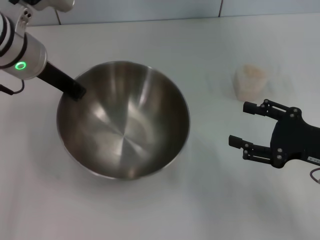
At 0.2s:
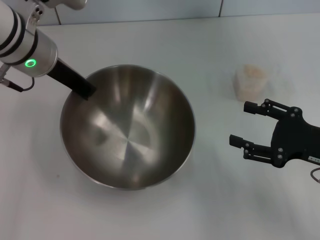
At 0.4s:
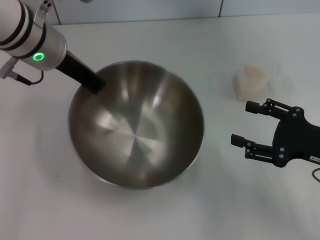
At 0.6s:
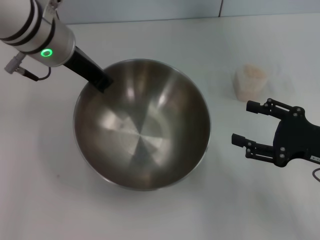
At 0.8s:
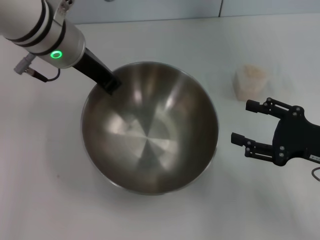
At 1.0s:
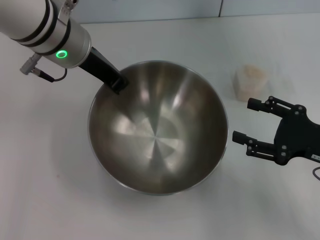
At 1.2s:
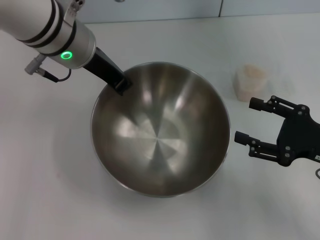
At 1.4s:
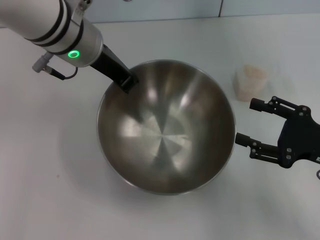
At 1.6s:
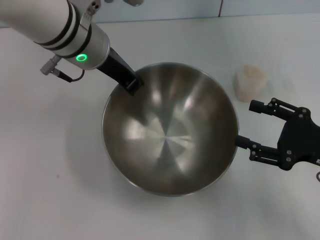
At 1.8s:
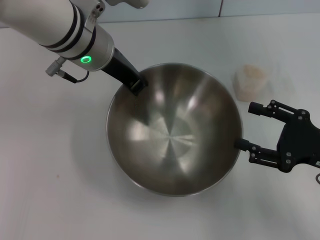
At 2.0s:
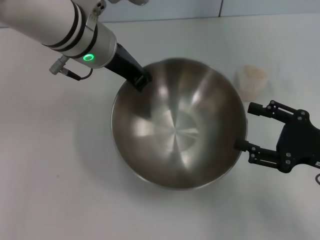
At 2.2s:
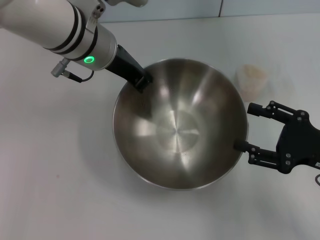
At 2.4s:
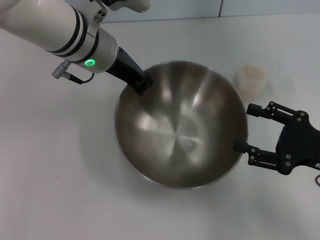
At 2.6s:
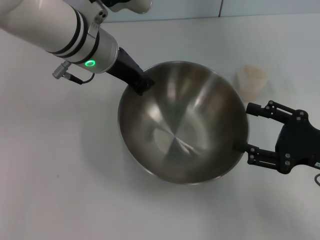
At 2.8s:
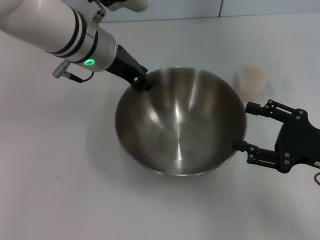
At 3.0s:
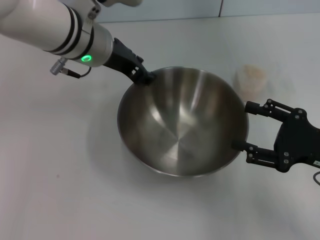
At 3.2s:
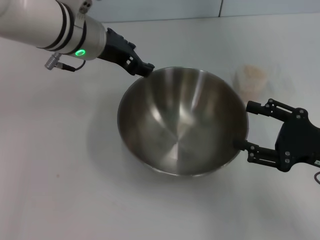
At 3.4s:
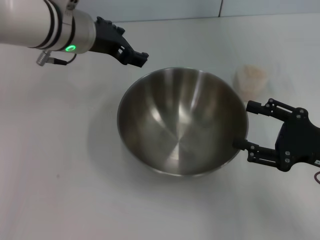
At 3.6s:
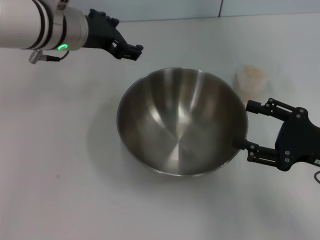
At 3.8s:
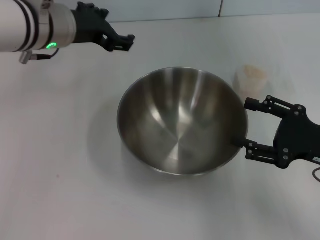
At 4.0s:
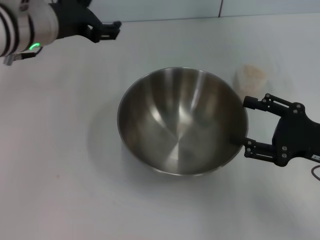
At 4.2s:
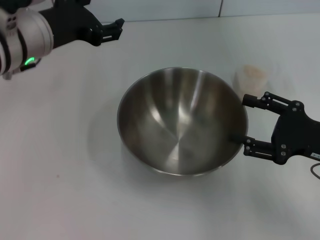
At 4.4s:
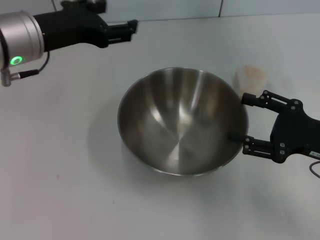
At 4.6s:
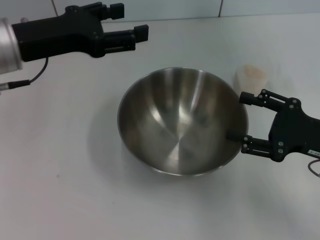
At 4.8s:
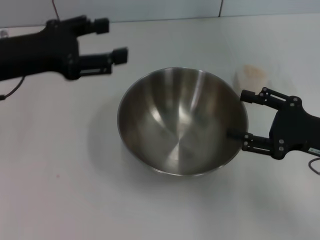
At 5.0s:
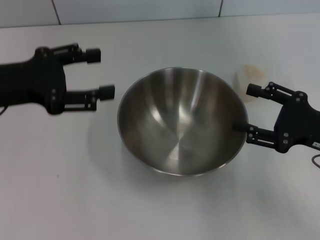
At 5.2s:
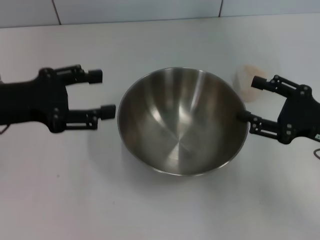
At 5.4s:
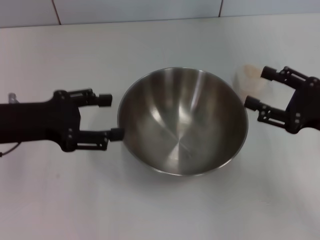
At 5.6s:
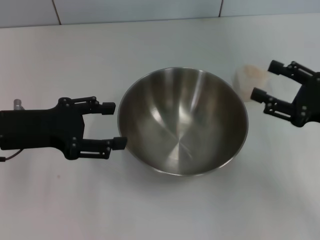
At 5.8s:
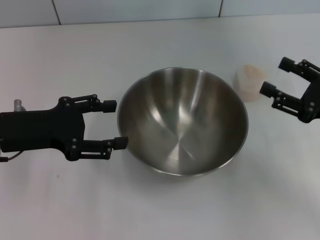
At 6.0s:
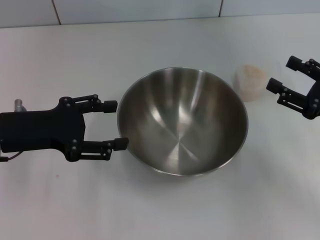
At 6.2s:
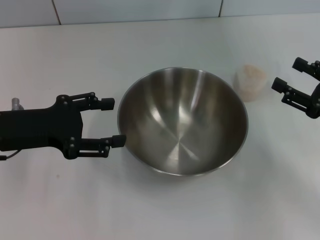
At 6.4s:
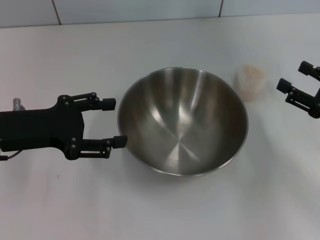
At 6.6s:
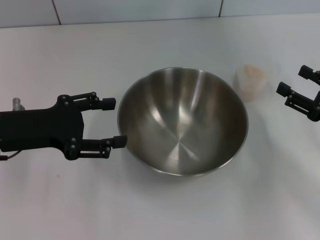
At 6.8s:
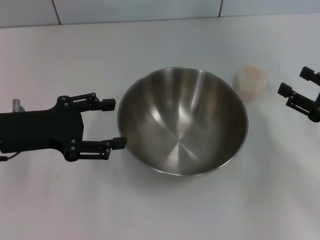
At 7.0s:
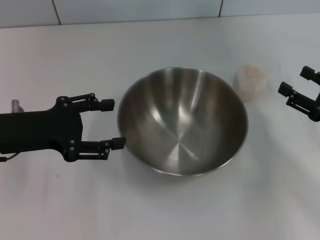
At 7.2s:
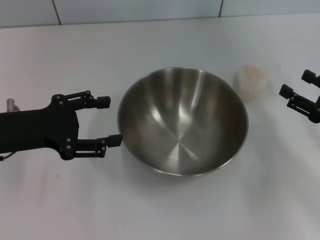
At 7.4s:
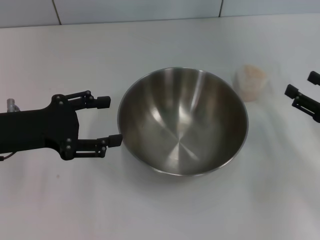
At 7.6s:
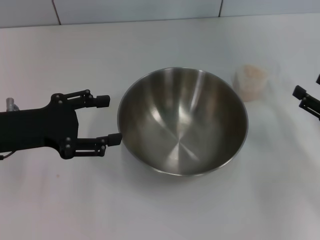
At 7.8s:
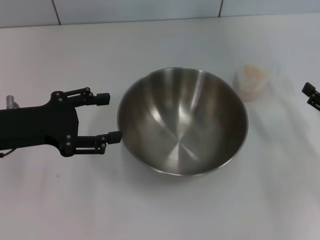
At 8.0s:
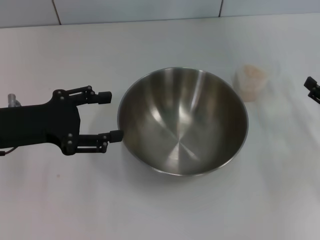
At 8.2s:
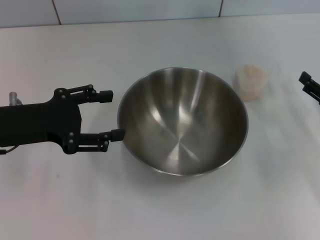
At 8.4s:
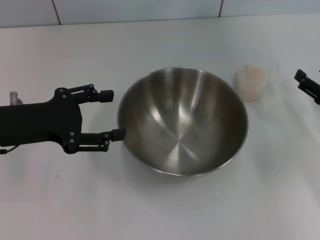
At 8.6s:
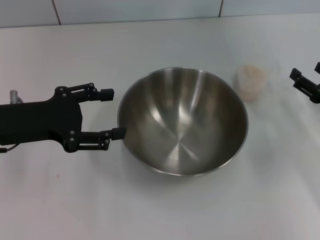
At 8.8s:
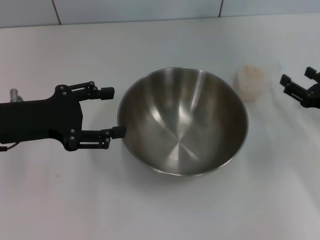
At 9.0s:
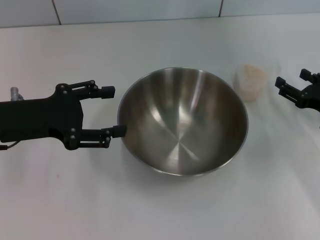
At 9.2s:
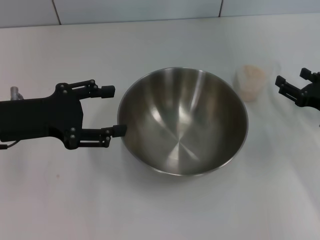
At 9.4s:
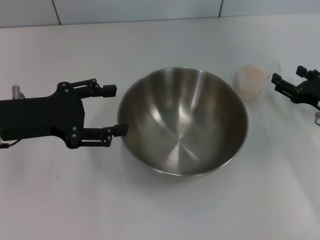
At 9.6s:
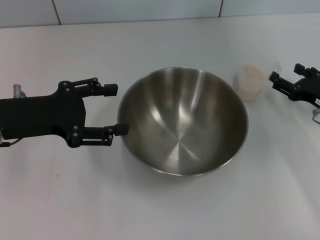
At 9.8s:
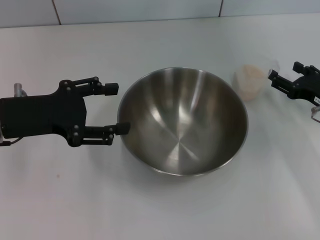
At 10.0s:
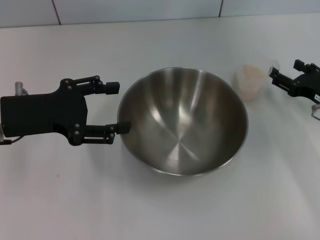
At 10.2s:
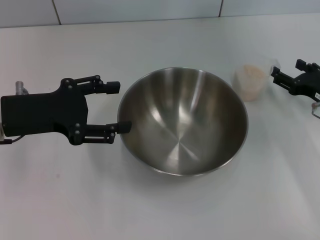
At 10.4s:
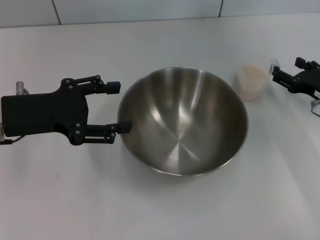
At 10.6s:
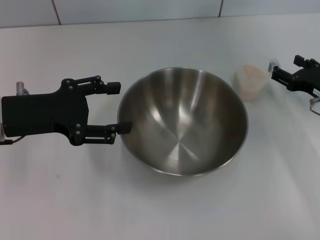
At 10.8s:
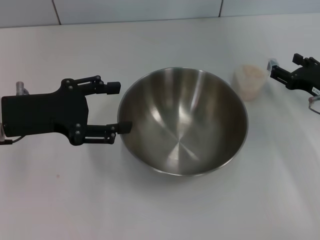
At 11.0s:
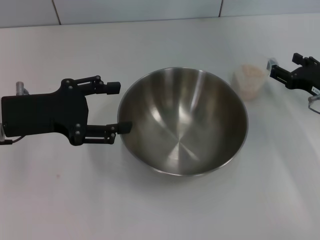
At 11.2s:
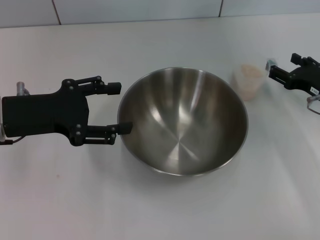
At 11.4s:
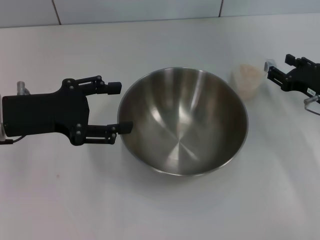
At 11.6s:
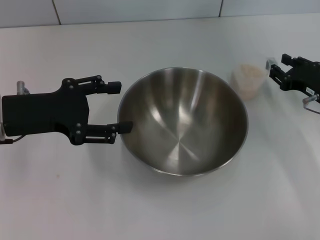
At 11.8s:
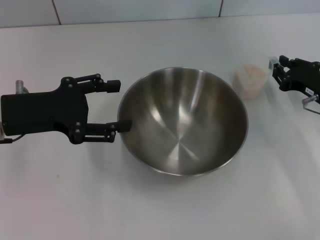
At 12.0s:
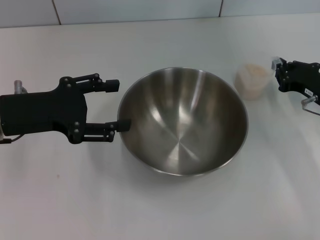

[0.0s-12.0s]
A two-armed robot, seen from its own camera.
Task of the whole recording: Place the bowl in the middle of the table with one hand and pour the rice from the grain cup into it with the other hand.
Step, 0.0s to 3.2s: Place the bowl in the center of view with the left gripper.
0.0s to 1.6s: The left gripper is displaced to the right by some 10 cm.
1.6s to 3.0s: The left gripper opens up.
3.0s to 4.4s: The left gripper is displaced to the left by approximately 10 cm, and opens.
4.4s to 6.0s: The left gripper shifts roughly 10 cm downward, to the left and backward.
6.0s to 7.6s: The grippers move only a little.
7.6s to 9.0s: The right gripper travels forward by about 5 cm.
9.0s to 10.4s: The grippers move only a little.
10.4s to 12.0s: The right gripper closes.

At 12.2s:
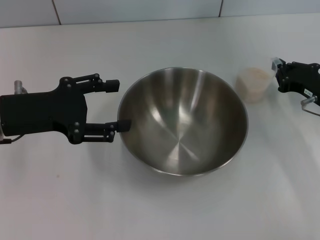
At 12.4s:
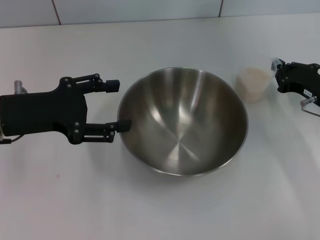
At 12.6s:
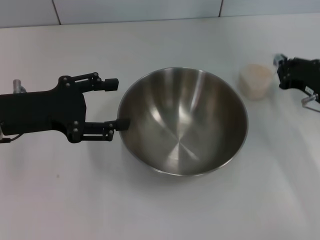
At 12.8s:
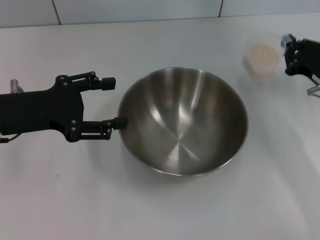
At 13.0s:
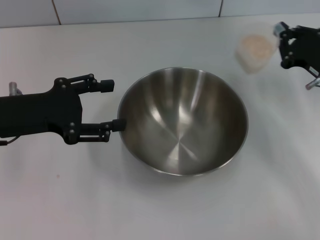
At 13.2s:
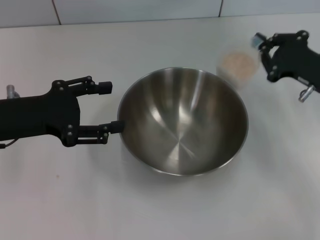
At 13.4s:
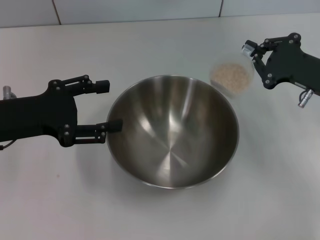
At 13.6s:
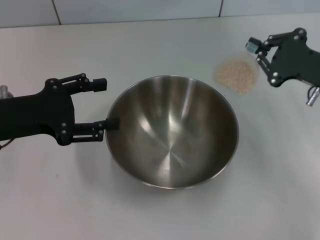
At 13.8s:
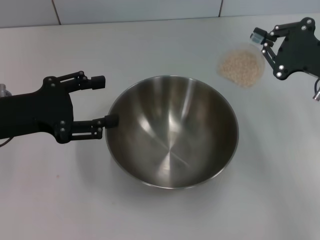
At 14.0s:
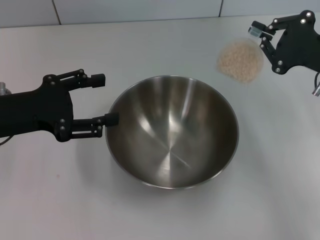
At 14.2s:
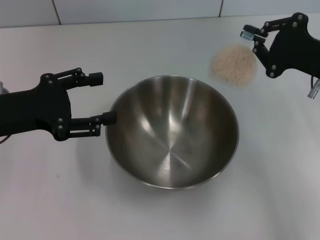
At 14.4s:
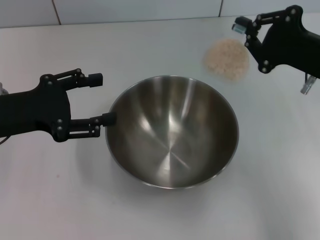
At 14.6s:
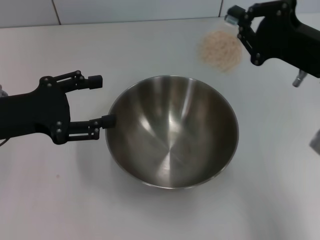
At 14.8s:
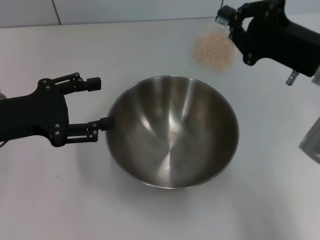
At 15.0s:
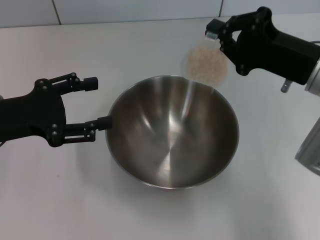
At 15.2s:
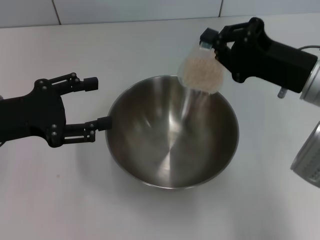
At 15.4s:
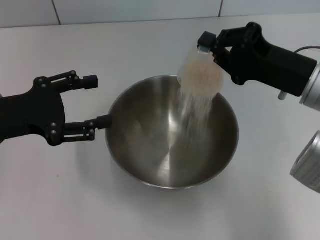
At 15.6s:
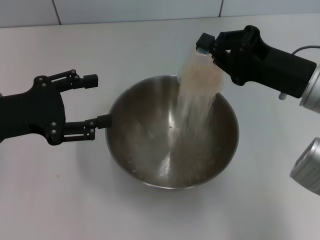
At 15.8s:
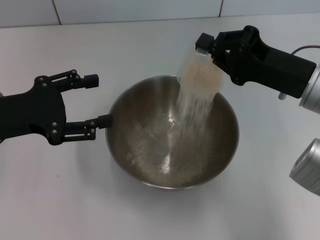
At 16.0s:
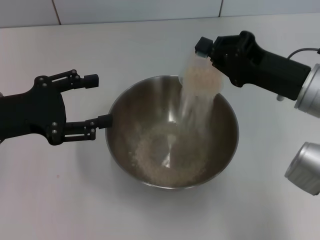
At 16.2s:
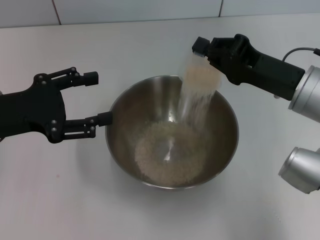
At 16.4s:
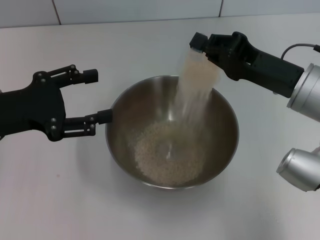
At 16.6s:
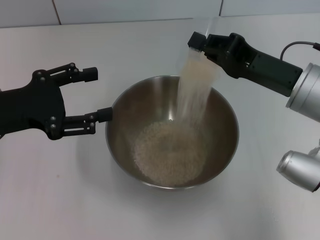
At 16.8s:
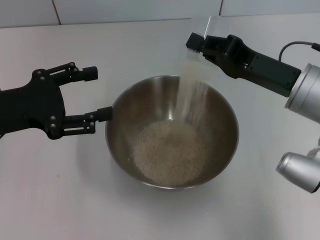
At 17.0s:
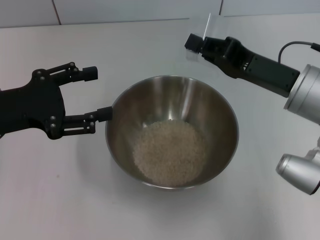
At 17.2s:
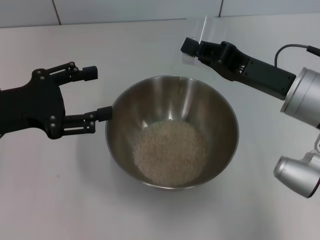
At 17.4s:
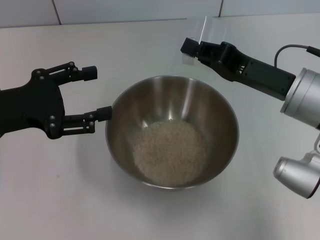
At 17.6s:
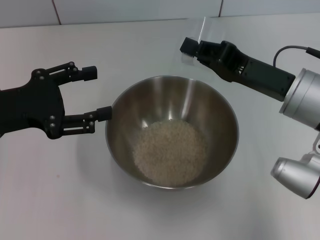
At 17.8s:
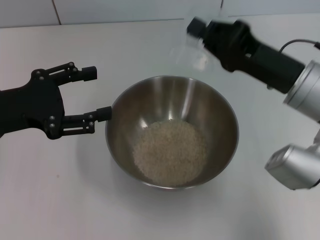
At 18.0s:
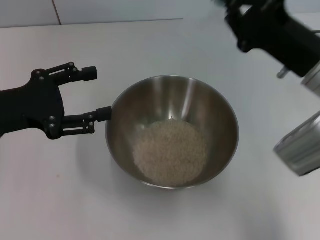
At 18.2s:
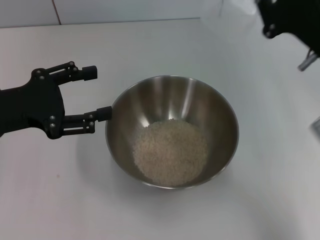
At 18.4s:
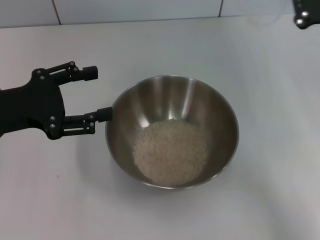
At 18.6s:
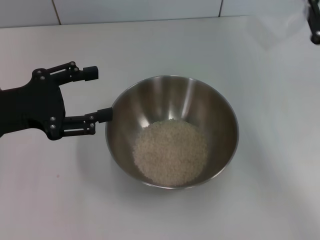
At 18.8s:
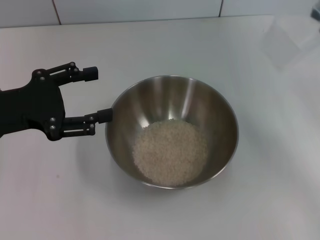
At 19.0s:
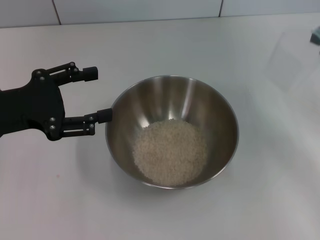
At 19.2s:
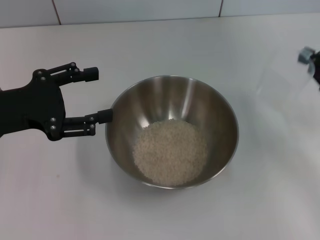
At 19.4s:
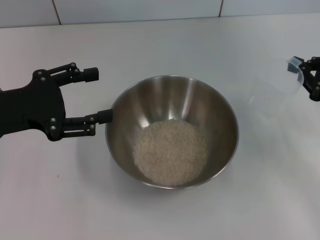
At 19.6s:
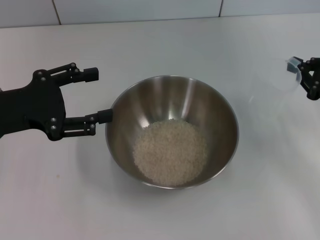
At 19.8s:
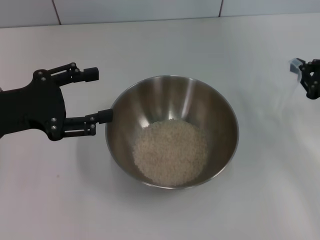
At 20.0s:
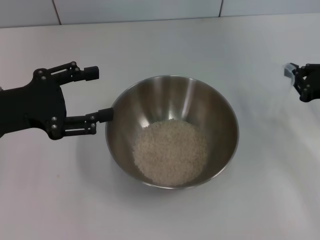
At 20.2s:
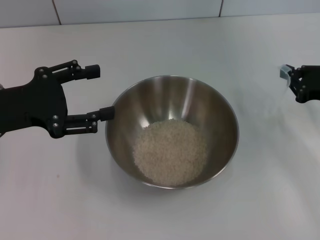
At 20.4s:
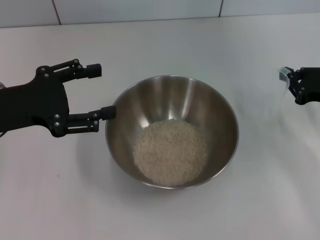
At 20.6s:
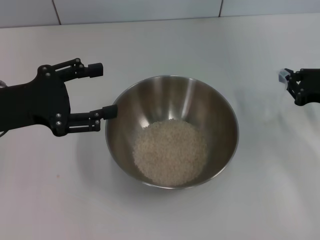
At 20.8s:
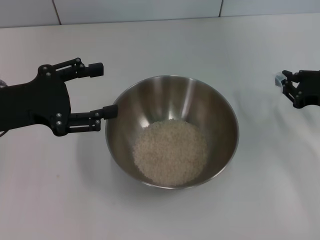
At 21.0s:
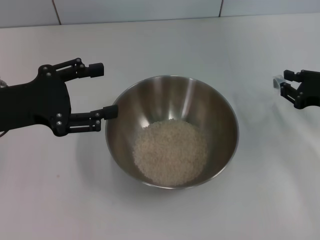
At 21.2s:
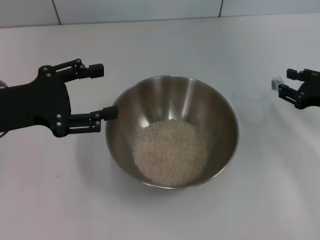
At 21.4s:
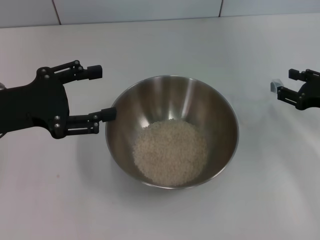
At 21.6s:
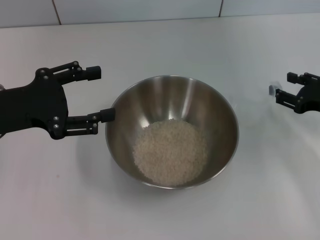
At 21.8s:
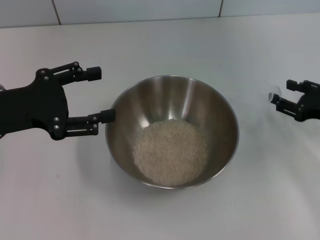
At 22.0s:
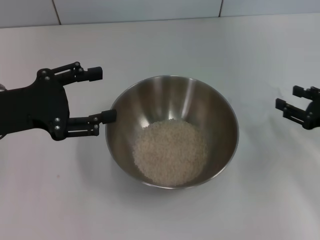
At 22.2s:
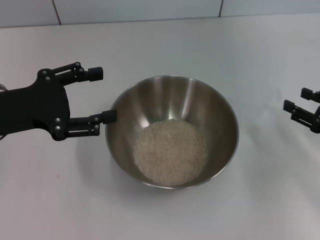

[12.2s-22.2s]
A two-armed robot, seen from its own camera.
Task of the whole recording: Place the bowl in the middle of the table with one hand and pour the rice from the grain cup into it with the other hand.
Step, 13.2s to 18.0s: Pour the rice from the cup into the bowl with the right gripper.
12.2s to 13.6s: The right gripper shifts roughly 10 cm upward.
13.6s to 15.0s: The right gripper travels to the left by approximately 5 cm.
18.0s to 19.4s: The right gripper travels to the right and downward by about 15 cm.
19.4s to 20.8s: The grippers move only a little.
20.8s to 22.2s: The right gripper goes about 5 cm backward, and opens up.
